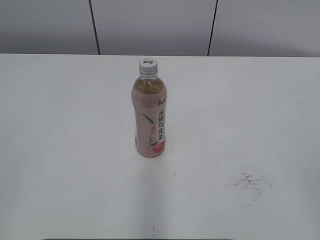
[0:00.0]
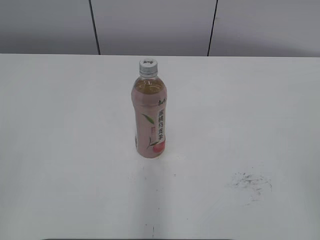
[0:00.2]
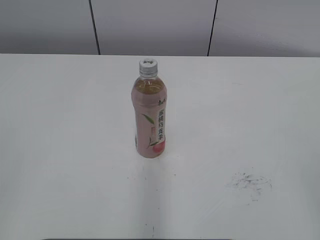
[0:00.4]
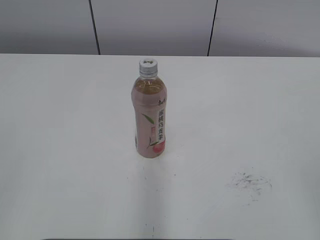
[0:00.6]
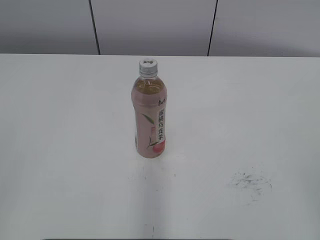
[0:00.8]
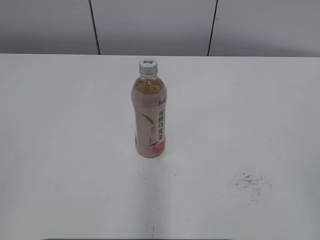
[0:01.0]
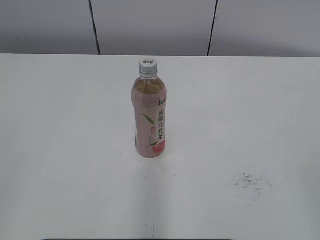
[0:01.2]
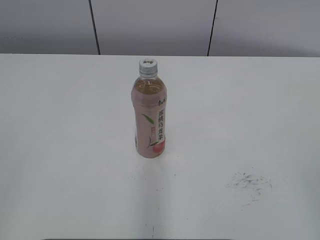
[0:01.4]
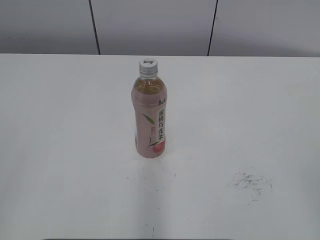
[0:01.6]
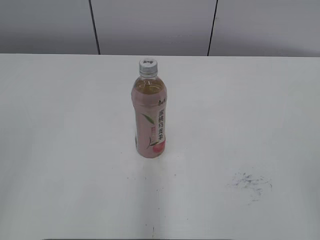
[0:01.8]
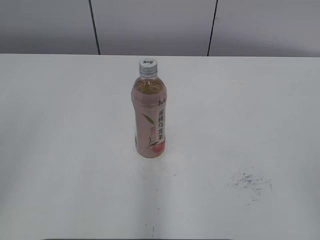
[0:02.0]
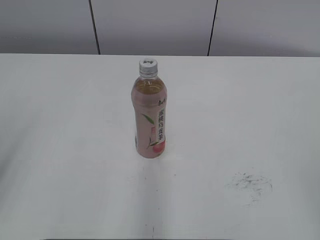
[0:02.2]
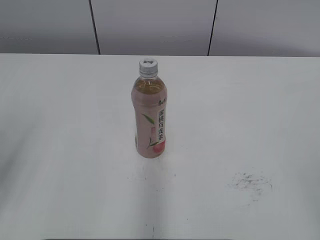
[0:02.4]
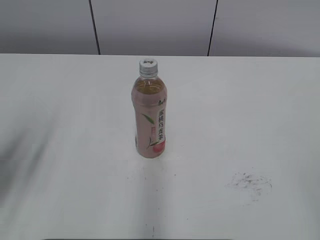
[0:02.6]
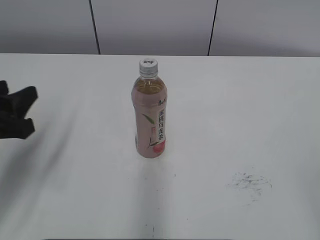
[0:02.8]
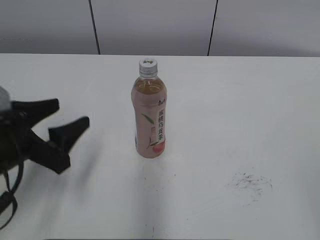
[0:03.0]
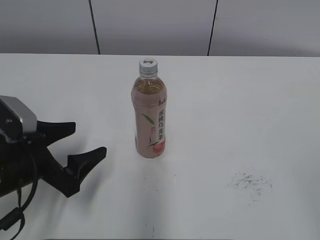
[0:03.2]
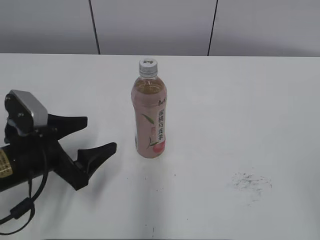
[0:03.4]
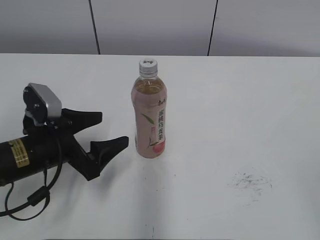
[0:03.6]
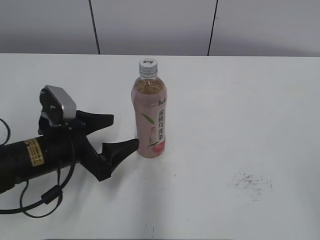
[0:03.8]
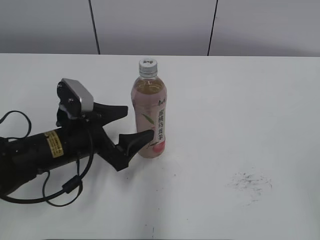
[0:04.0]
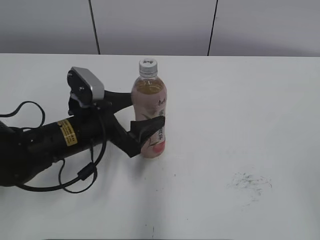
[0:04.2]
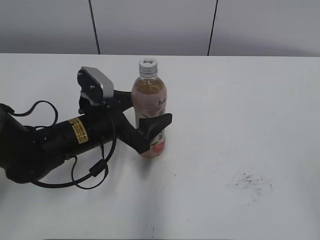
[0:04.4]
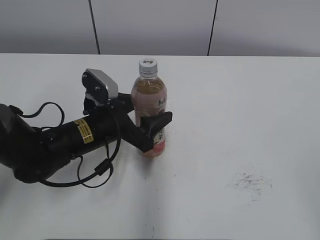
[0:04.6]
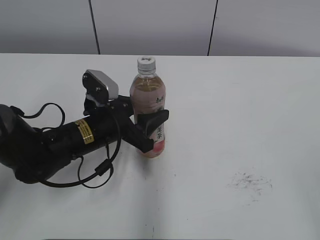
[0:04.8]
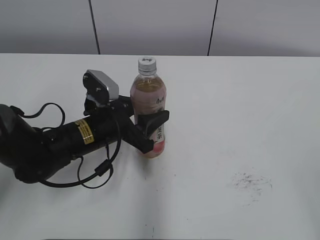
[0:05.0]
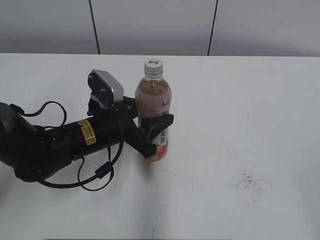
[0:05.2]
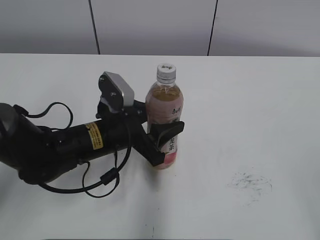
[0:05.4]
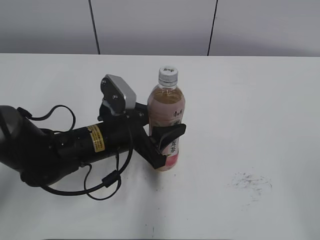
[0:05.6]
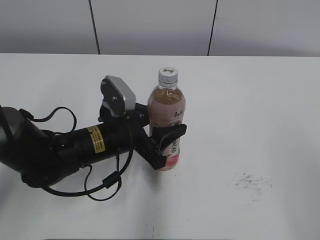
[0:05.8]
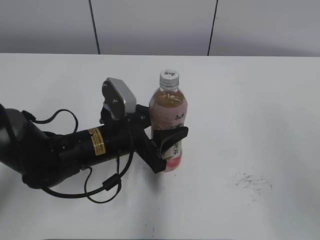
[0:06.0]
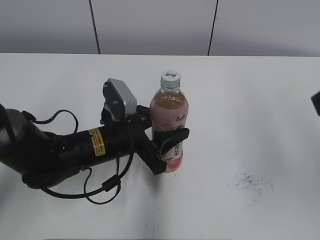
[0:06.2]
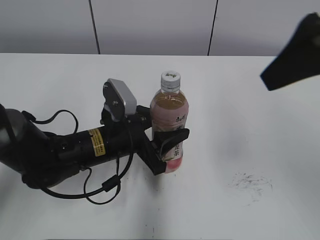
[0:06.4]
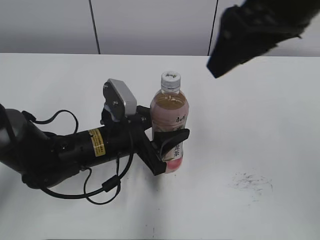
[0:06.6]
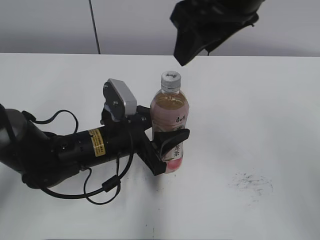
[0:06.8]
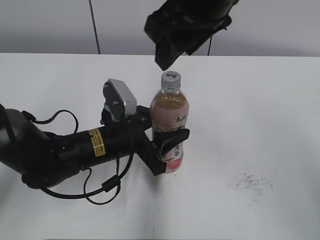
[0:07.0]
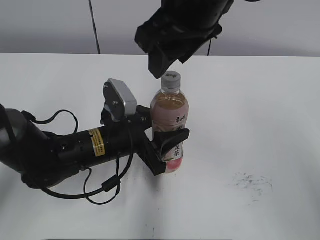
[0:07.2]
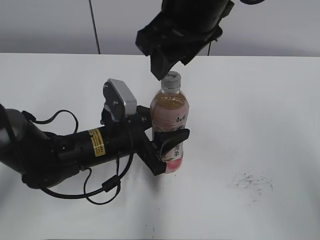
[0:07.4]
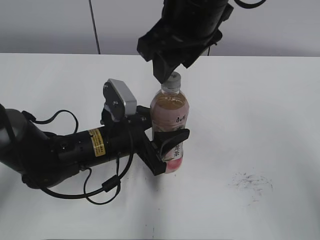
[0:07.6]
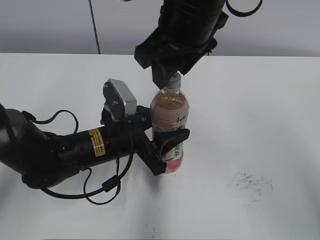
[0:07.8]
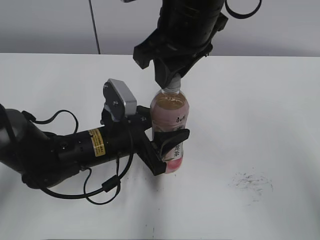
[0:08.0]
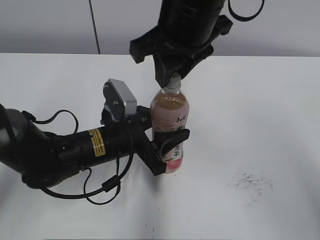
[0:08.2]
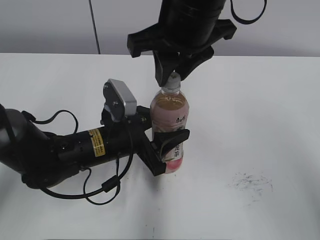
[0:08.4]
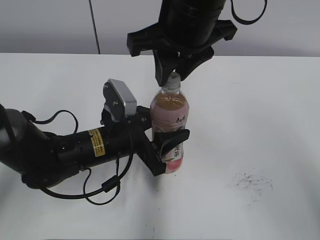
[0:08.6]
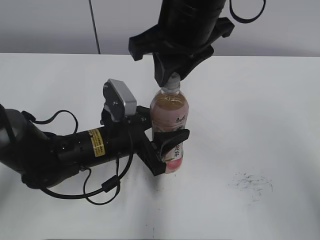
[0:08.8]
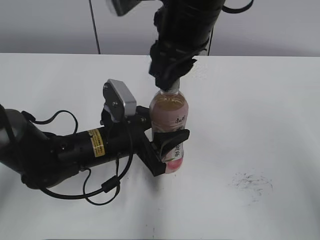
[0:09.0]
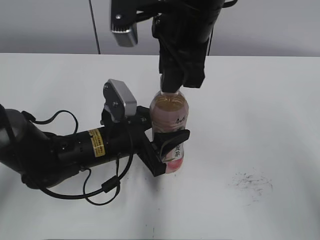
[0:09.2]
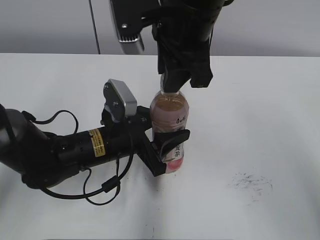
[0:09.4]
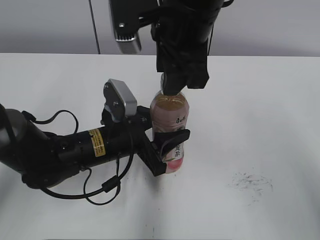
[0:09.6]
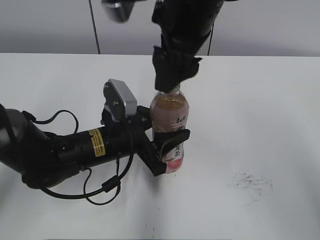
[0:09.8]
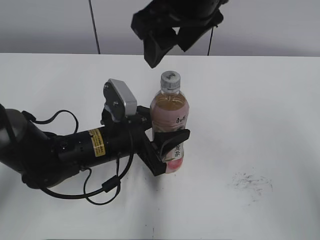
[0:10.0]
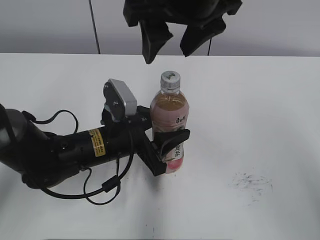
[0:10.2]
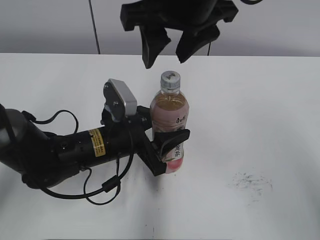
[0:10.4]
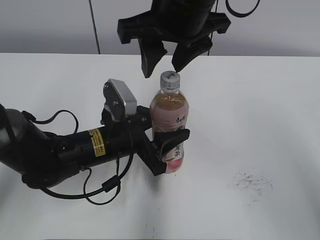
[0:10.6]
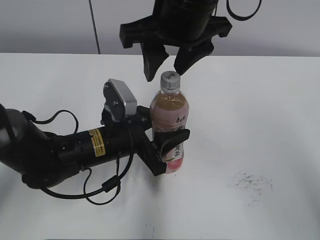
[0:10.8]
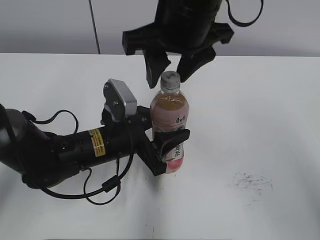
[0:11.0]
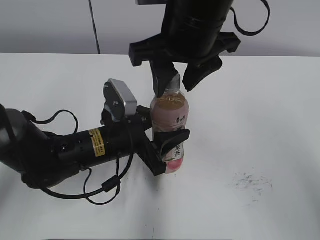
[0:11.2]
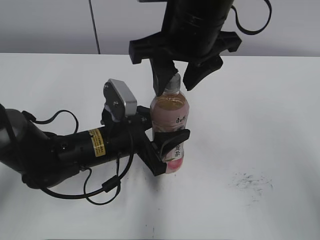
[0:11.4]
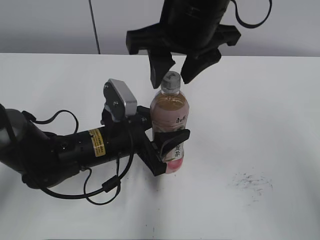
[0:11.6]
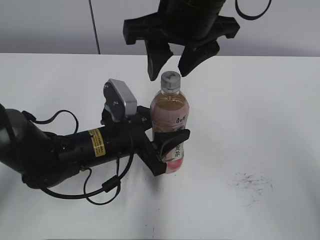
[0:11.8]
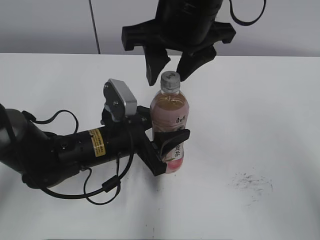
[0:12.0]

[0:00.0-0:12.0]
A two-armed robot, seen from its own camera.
Step, 0:00.0 to 0:04.8: Grab the Peach Oolong Tea with the left hand.
Step, 0:05.0 to 0:07.8: Move the Peach Oolong Tea from left to right.
0:01.6 to 0:03.0: The left gripper shifts some 25 cm forward and downward, and opens up.
0:03.0 to 0:04.4: The left gripper heads to the right and forward, covering about 15 cm, and opens.
0:04.4 to 0:06.0: The right gripper heads forward and upward, covering roughly 10 cm. Meanwhile the left gripper closes.
0:06.0 to 0:07.6: The right gripper goes some 30 cm to the left and forward.
0:07.6 to 0:09.0: The right gripper closes its fingers.
0:09.0 to 0:10.4: The right gripper opens.
0:10.4 to 0:12.0: The grippers make only small movements.

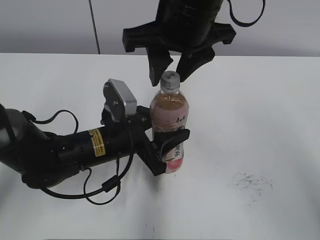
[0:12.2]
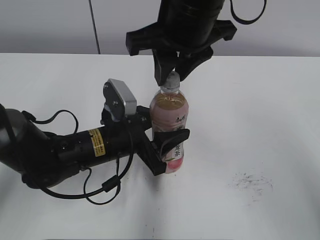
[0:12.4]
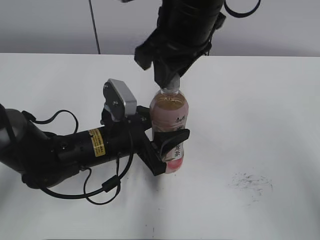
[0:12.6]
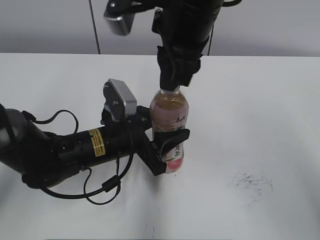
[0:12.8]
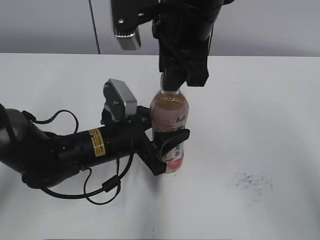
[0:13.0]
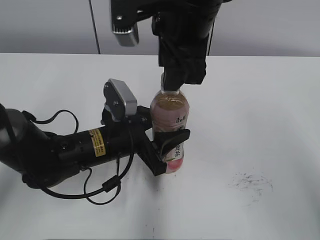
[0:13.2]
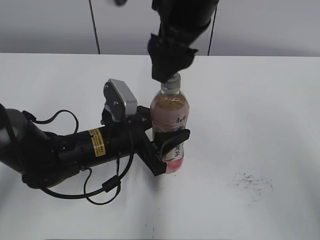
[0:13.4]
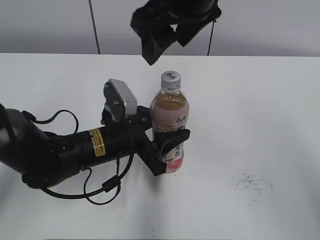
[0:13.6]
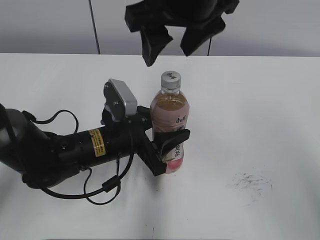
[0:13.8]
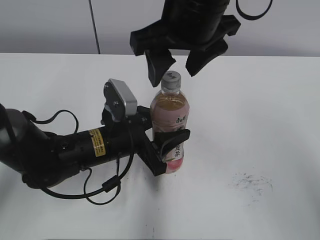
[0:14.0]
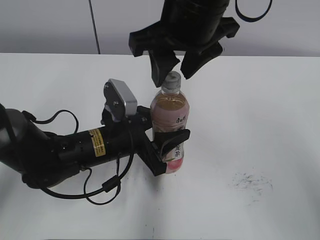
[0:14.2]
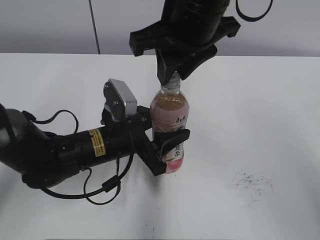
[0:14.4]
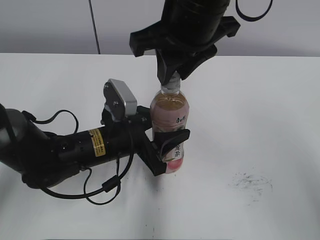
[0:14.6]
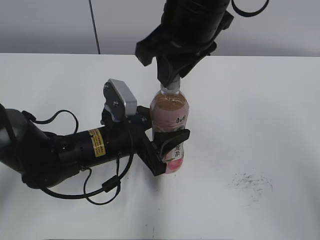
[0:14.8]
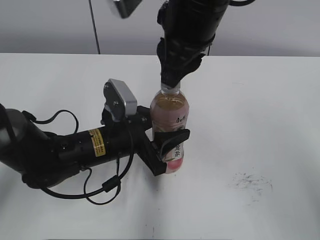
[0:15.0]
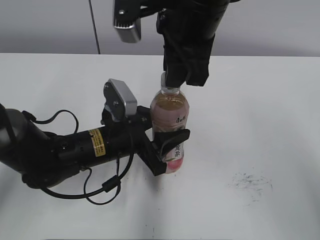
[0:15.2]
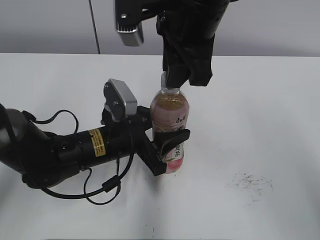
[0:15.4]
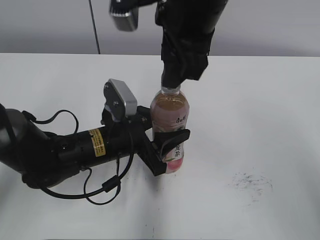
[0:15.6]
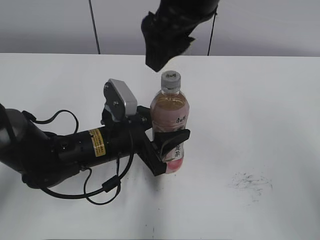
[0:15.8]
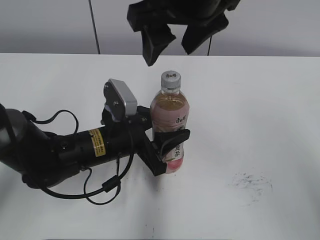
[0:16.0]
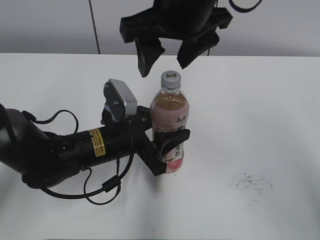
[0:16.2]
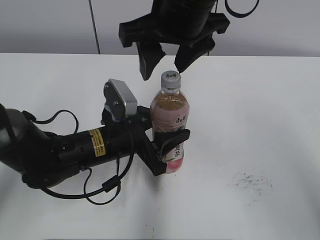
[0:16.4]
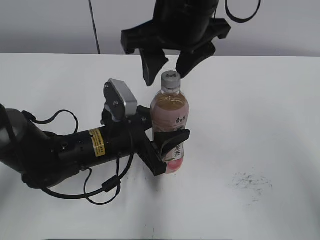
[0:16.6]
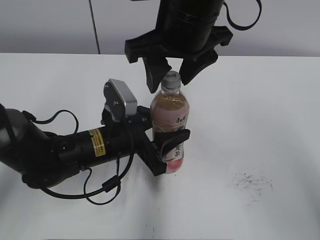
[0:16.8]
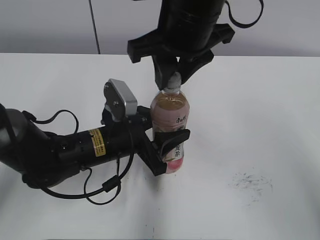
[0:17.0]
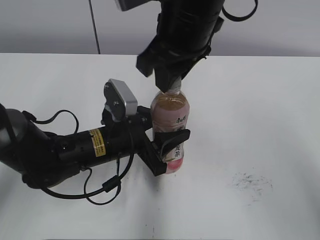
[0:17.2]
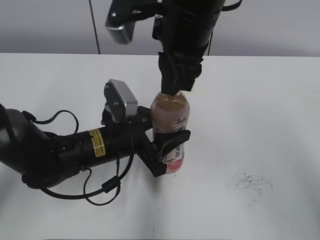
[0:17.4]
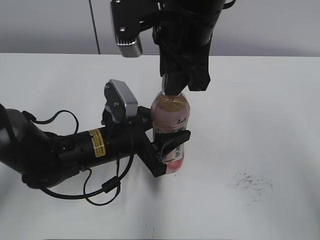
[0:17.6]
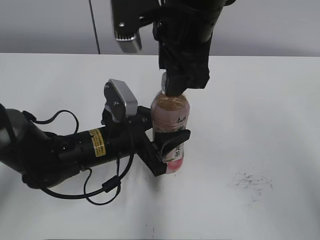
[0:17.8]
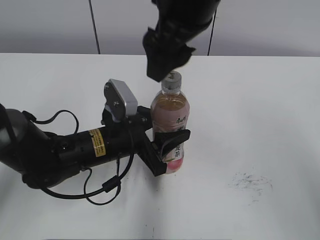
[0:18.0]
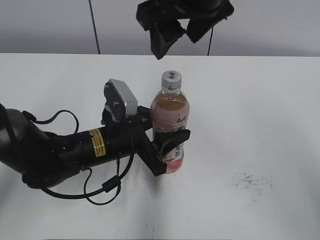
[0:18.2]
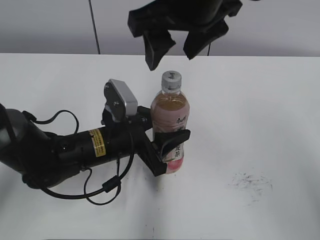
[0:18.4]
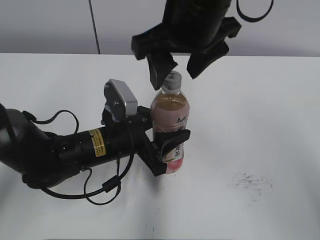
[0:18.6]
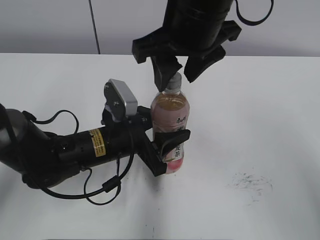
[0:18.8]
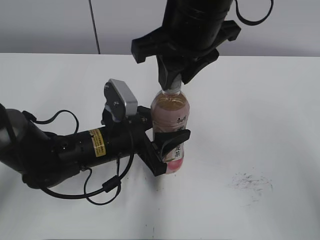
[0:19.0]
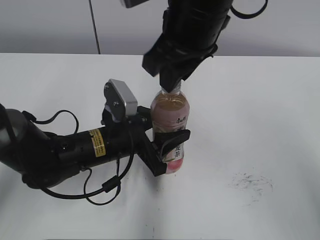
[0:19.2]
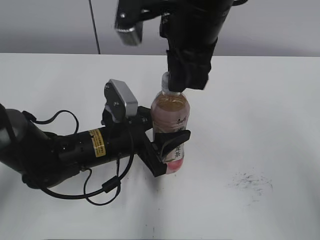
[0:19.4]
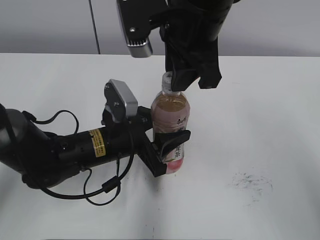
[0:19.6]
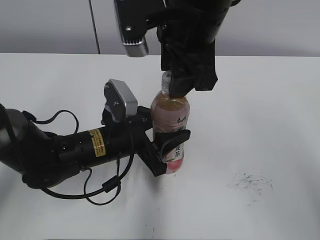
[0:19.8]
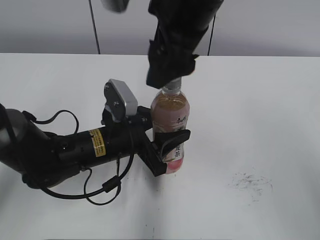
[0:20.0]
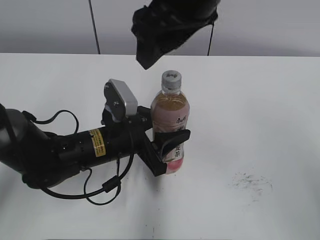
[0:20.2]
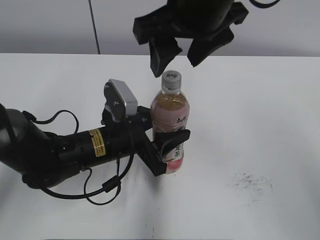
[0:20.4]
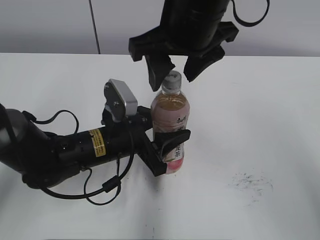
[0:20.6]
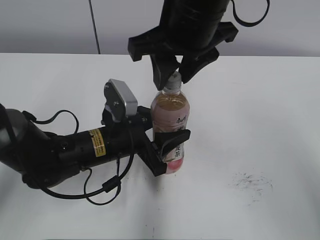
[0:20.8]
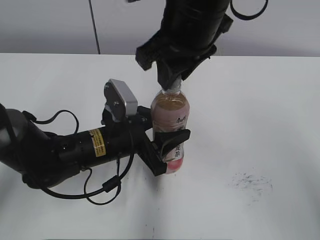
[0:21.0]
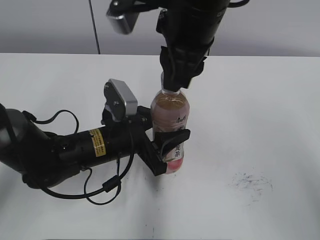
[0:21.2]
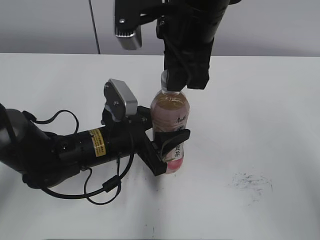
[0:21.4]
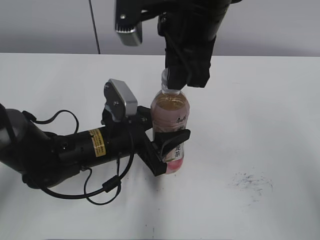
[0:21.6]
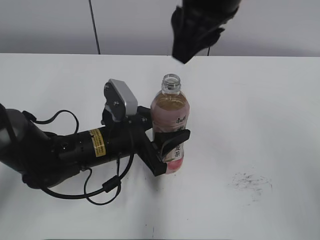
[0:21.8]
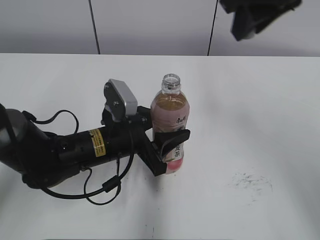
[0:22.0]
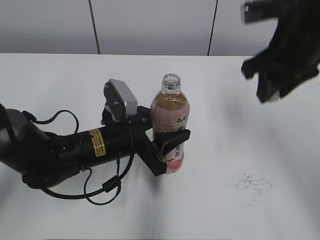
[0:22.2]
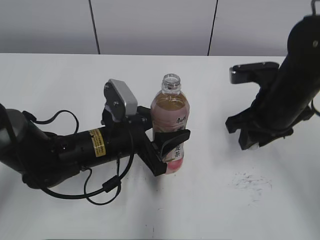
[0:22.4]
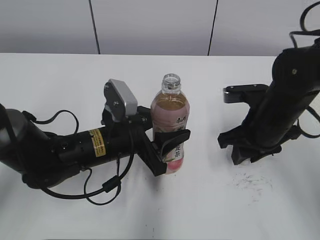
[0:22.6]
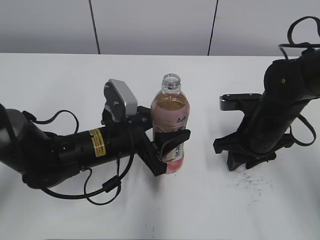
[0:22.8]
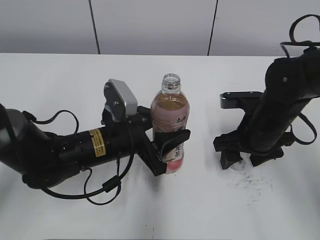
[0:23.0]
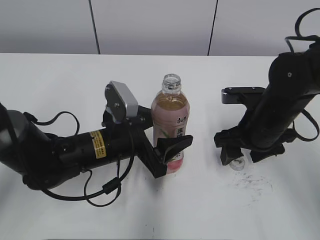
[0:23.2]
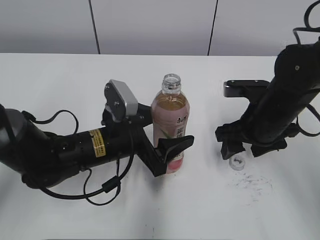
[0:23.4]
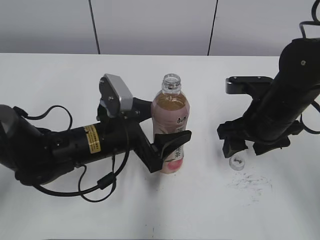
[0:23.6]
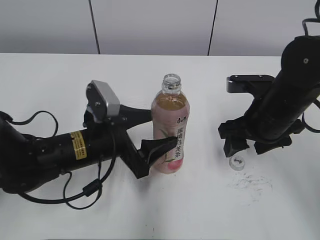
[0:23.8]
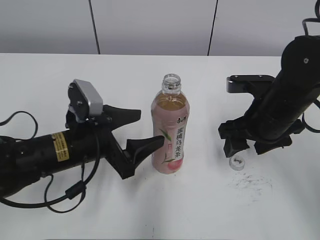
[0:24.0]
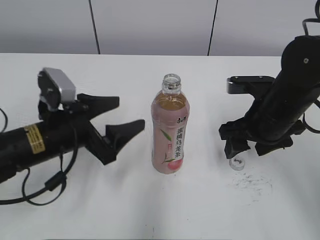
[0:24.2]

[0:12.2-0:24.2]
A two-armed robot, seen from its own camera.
Step, 0:21.8 to 0:22.8: Place the bottle cap on the right.
0:12.2 to 0:13.8: The right gripper opens up.
0:13.8 to 0:15.2: The right gripper closes its fingers.
0:15.2 to 0:16.6: The right gripper opens up.
0:16.6 to 0:18.2: The right gripper closes, then reopens.
0:18.2 to 0:19.8: The right gripper closes.
0:19.8 to 0:21.2: The right gripper closes up.
0:21.2 to 0:22.6: The right gripper moves downward and to the right, some 20 cm.
0:22.6 to 0:24.2: The right gripper opens; the left gripper heads to the left, covering roughly 5 cm, and opens its fingers.
